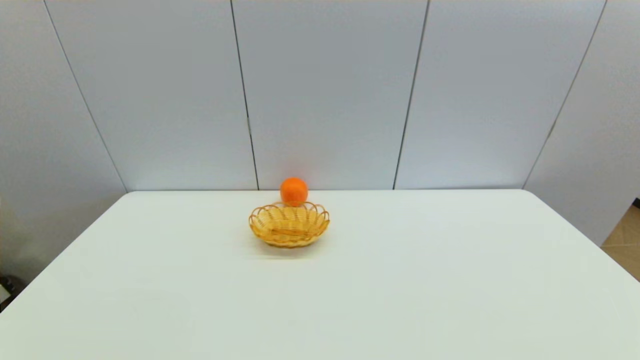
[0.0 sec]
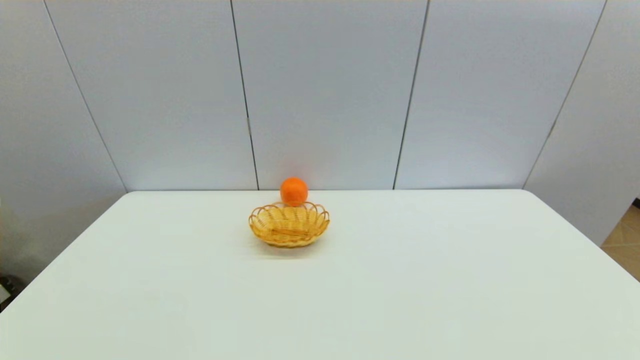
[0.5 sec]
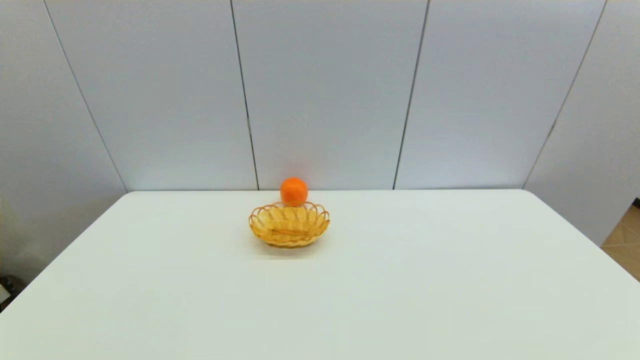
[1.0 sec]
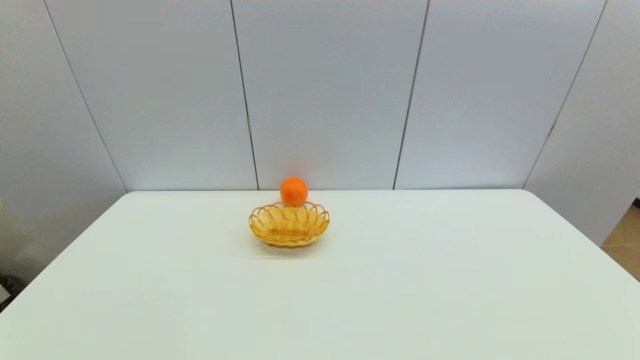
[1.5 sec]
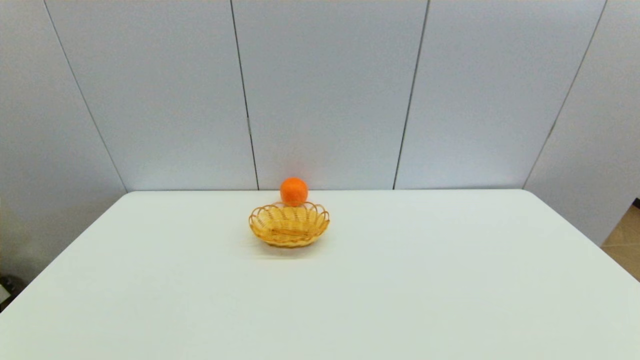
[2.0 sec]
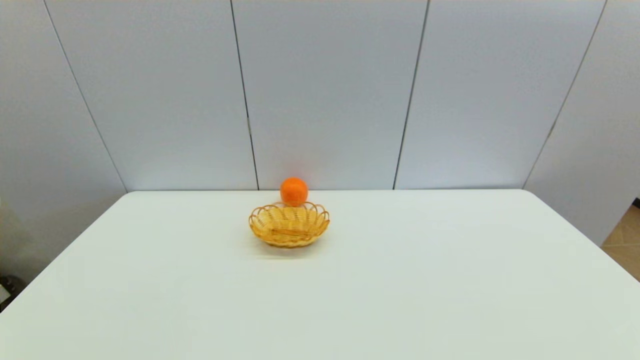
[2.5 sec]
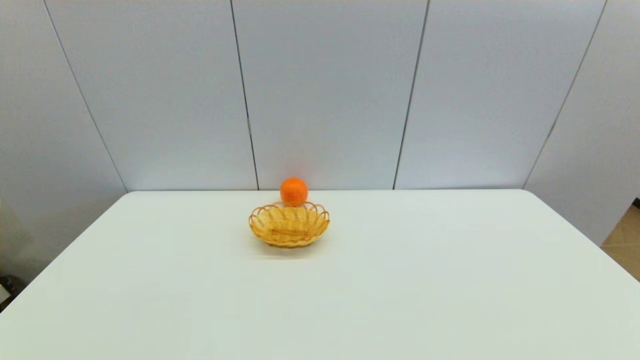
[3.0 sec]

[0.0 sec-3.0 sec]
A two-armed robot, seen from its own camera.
0.0 sec to 3.0 sec: Both grippers stay about where they are.
